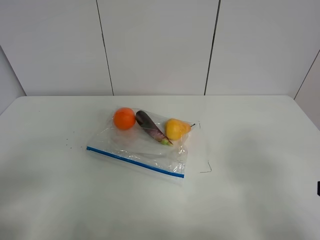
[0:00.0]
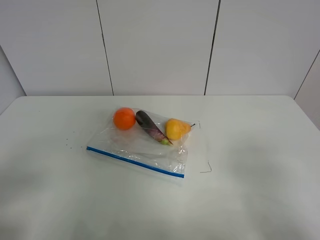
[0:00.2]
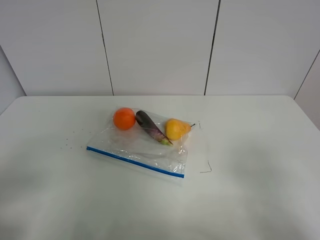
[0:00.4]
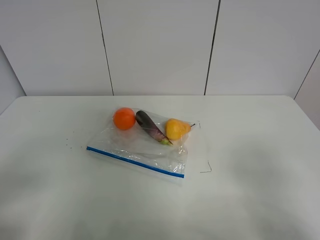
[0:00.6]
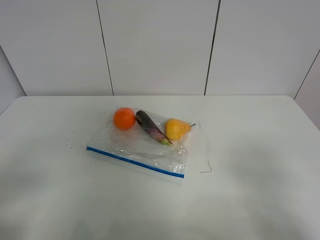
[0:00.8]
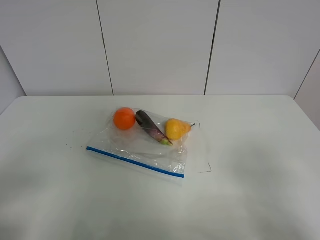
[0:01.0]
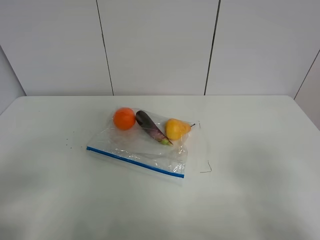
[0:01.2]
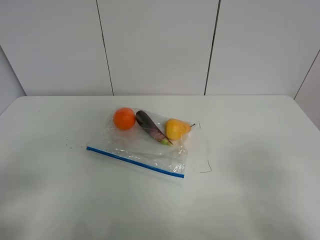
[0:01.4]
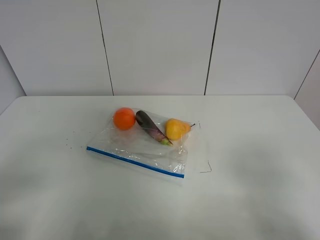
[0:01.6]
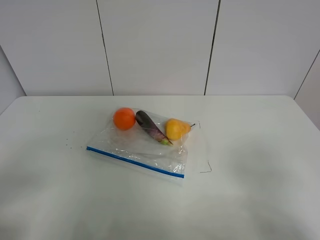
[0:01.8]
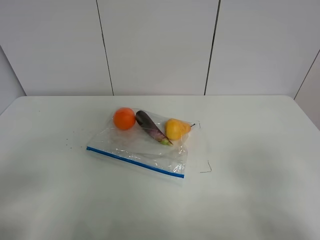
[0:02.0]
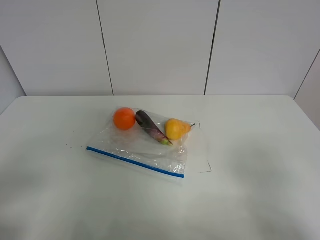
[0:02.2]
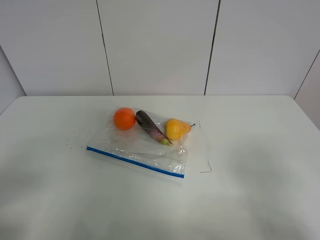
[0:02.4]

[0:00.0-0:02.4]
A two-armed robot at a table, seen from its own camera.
0:01.2 to 0:02.4: Both grippers stay put.

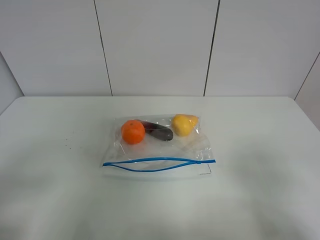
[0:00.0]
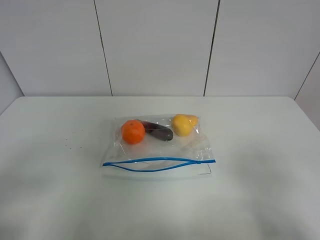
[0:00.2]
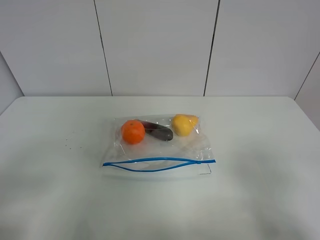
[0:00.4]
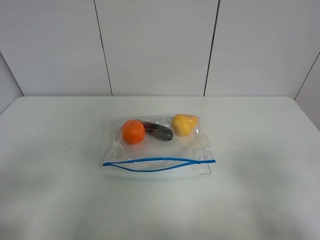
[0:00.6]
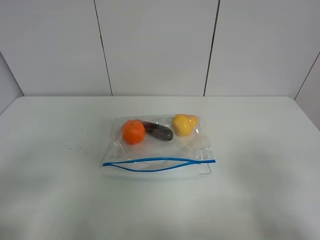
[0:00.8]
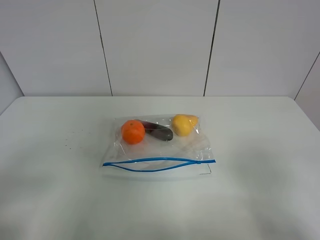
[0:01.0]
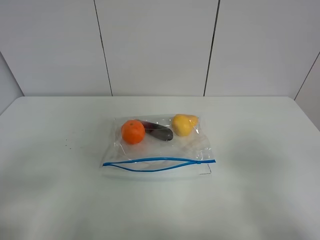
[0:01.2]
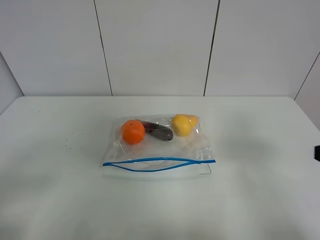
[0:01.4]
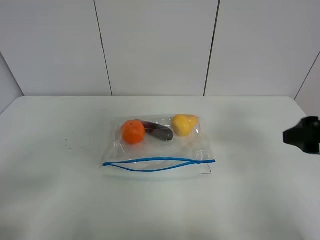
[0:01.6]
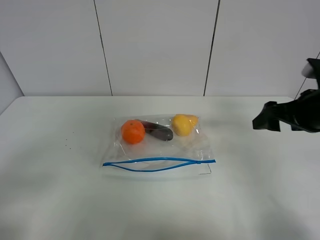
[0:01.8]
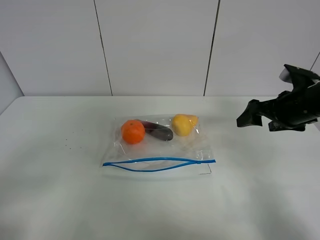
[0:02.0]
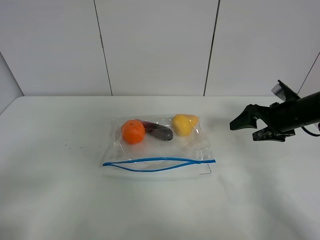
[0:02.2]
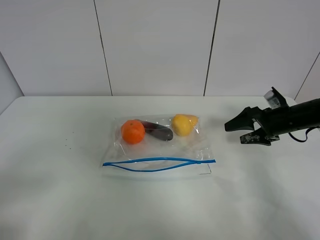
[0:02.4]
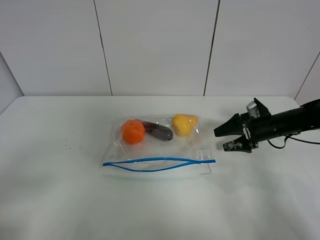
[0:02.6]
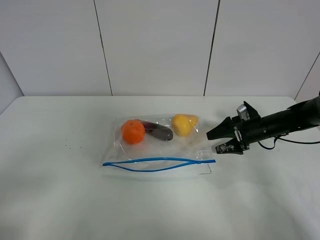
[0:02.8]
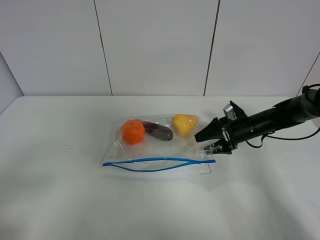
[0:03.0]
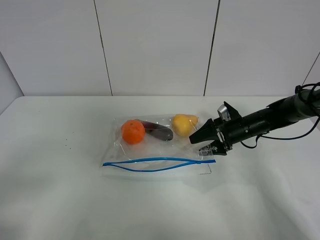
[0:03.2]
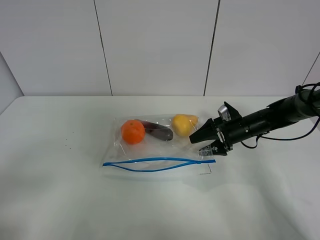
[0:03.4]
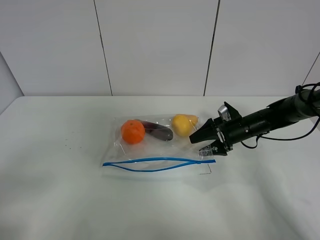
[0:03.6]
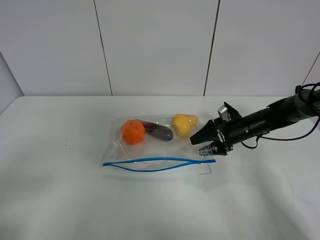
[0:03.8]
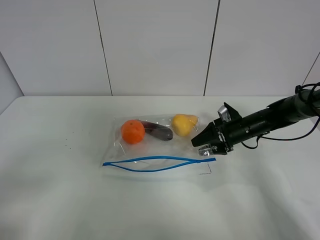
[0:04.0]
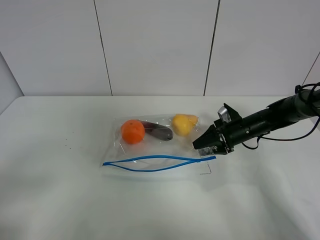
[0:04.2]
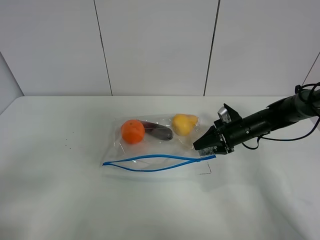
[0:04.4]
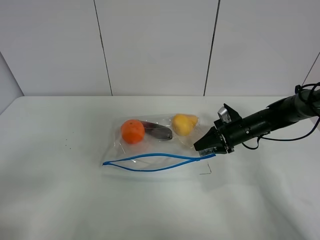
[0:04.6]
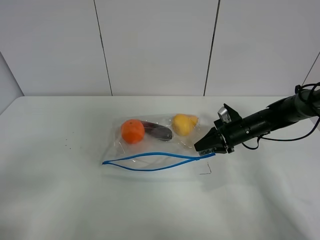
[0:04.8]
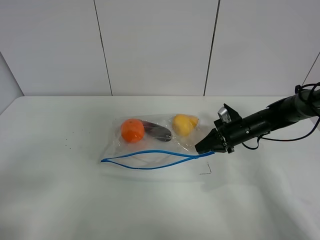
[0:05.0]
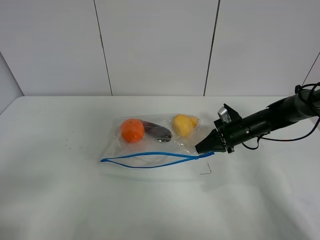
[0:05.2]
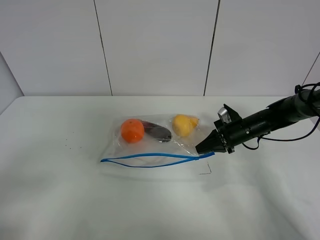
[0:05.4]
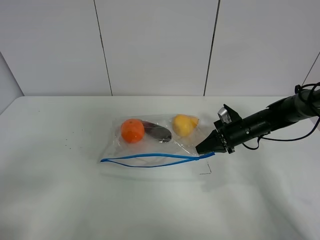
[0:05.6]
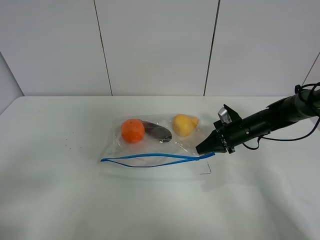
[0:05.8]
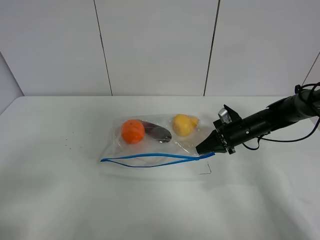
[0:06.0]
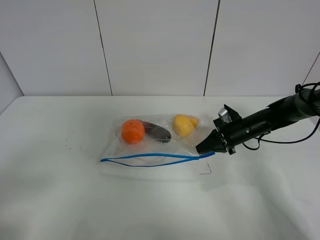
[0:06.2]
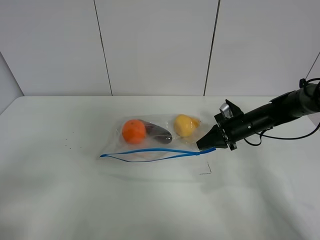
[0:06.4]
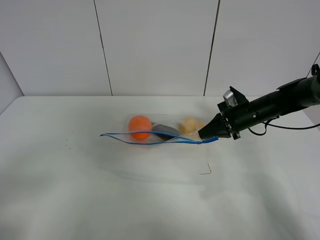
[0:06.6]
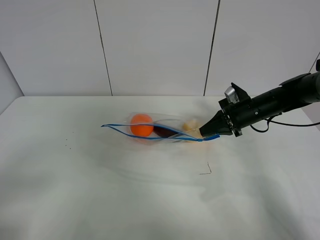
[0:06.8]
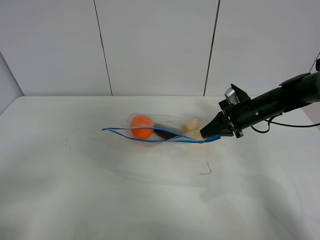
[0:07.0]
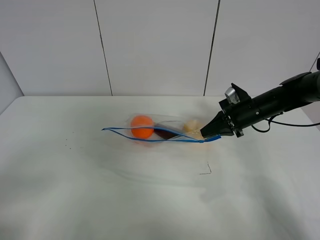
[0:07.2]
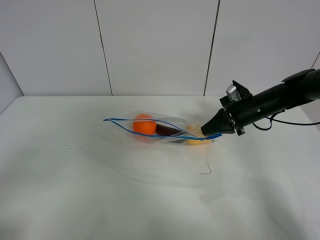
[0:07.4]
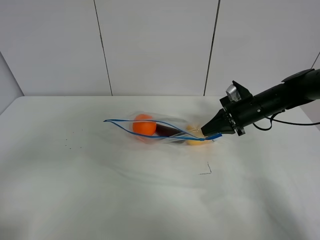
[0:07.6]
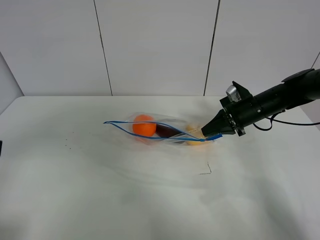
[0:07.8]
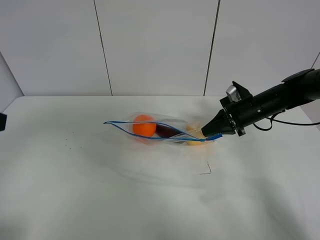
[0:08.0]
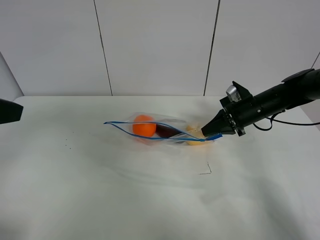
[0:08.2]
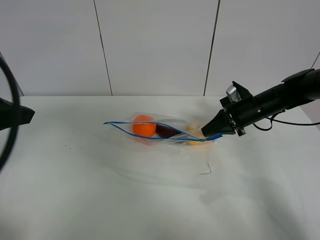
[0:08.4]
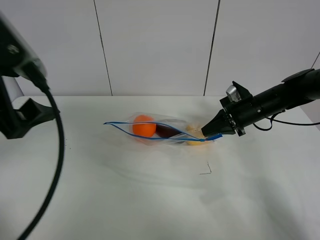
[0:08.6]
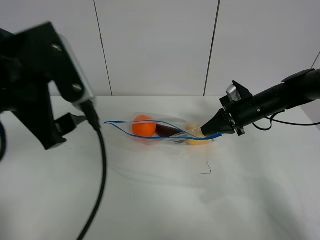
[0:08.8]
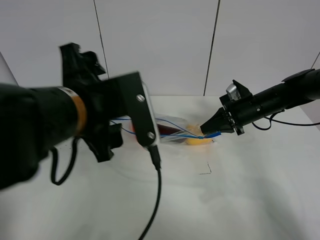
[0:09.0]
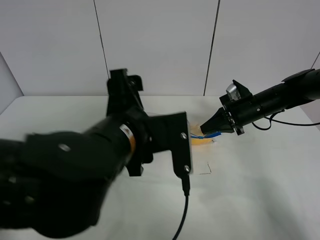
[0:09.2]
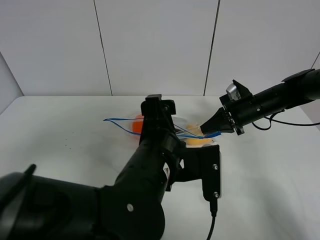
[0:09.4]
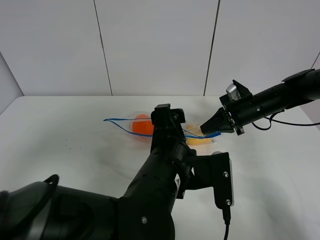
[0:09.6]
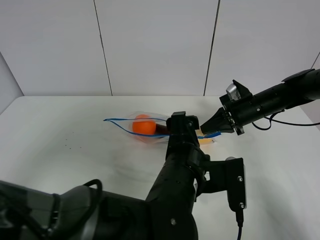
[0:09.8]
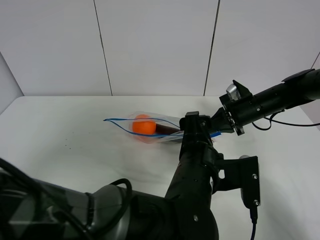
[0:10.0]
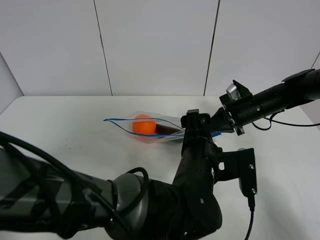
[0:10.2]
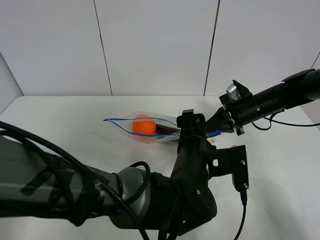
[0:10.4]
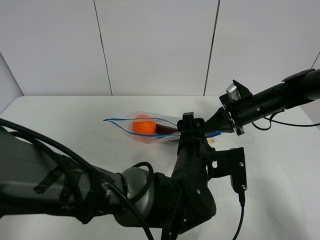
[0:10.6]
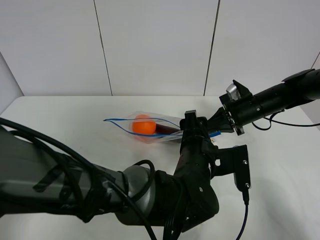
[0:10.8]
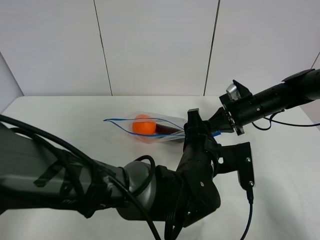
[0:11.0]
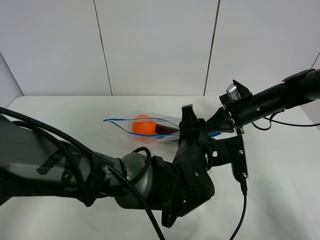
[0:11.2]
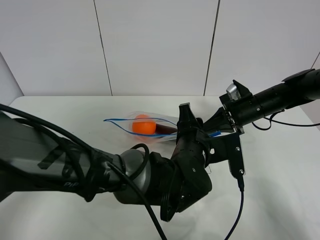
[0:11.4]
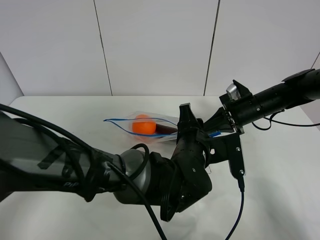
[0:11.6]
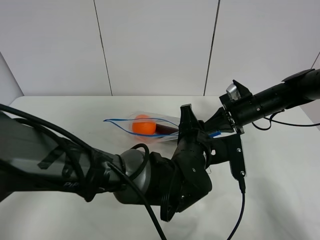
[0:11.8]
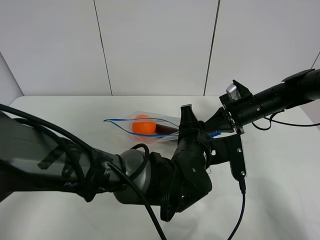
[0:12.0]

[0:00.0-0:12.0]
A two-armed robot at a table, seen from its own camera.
Step, 0:00.0 to 0:05.2: Grasp the fruit bag with right gripper.
Step, 0:05.4 to 0:07.8: Lift the fruit bag with your right gripper.
0:00.0 to 0:01.6: The right gripper travels forward by approximately 15 cm.
0:01.6 to 0:03.0: The right gripper heads forward and downward, covering approximately 30 cm.
0:03.0 to 0:04.4: The right gripper closes its fingers.
0:04.4 to 0:06.0: The right gripper closes its fingers.
0:06.0 to 0:07.6: Both grippers move upward, about 5 cm.
0:07.6 to 0:09.0: The left gripper heads to the right and forward, covering some 25 cm.
0:09.0 to 0:10.4: The left gripper goes approximately 20 cm to the right and downward.
0:10.4 to 0:12.0: The left gripper closes its fingers.

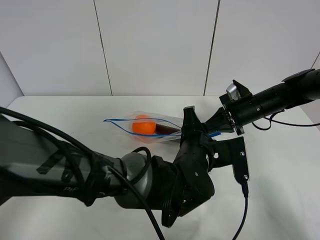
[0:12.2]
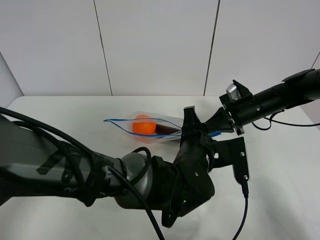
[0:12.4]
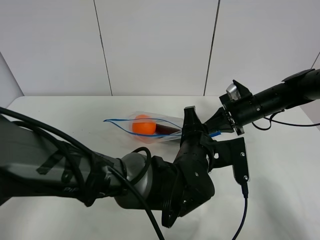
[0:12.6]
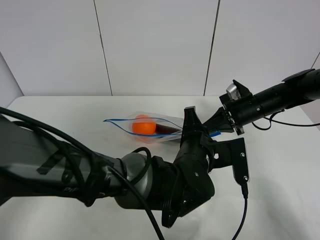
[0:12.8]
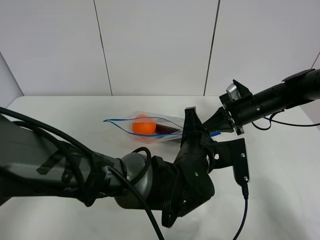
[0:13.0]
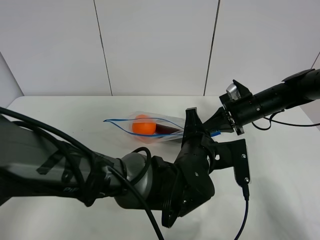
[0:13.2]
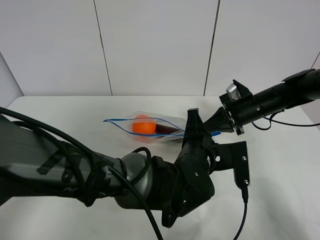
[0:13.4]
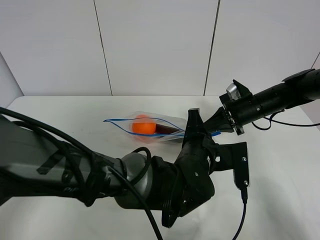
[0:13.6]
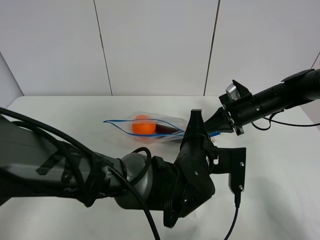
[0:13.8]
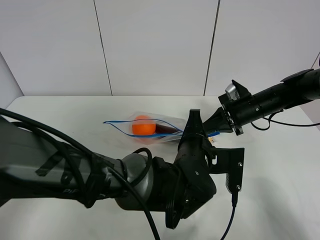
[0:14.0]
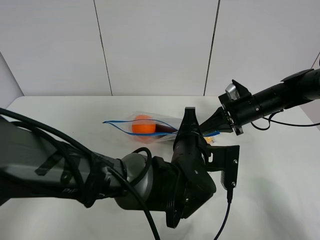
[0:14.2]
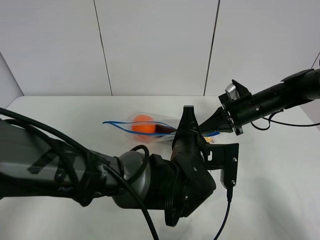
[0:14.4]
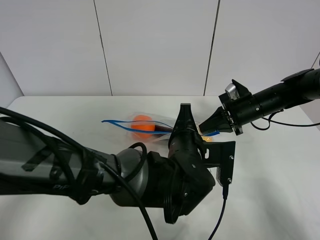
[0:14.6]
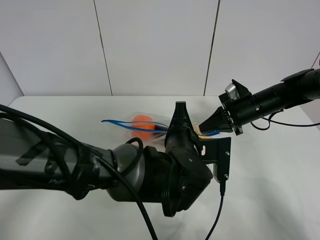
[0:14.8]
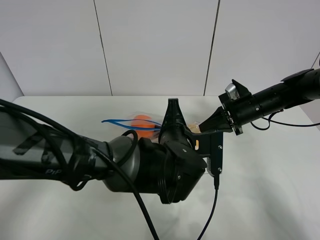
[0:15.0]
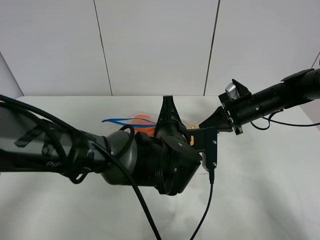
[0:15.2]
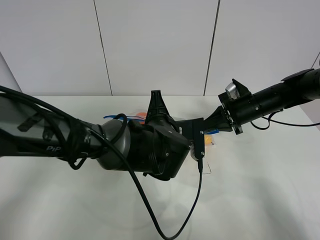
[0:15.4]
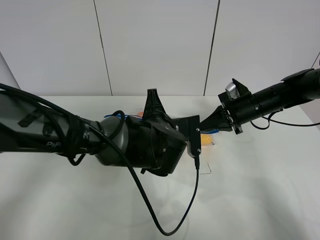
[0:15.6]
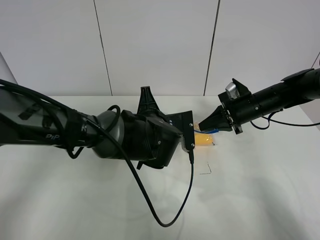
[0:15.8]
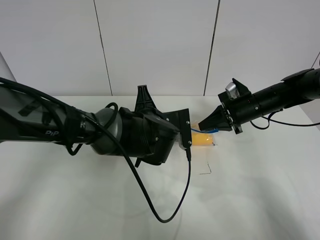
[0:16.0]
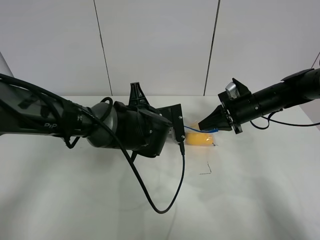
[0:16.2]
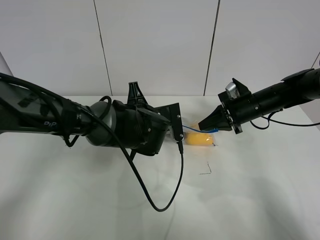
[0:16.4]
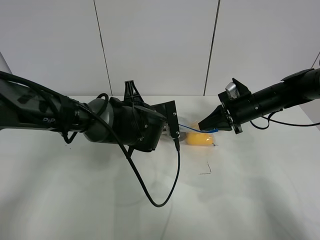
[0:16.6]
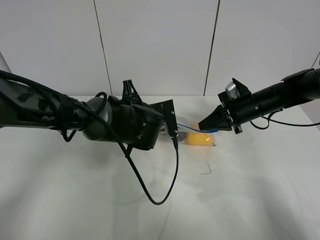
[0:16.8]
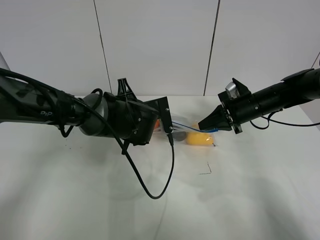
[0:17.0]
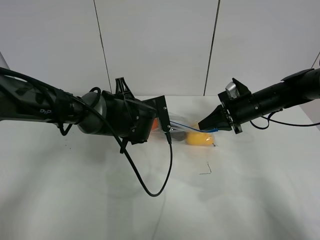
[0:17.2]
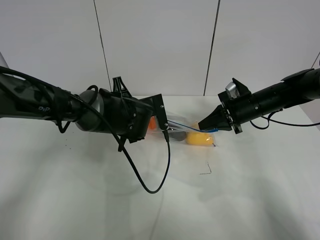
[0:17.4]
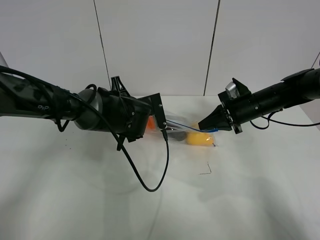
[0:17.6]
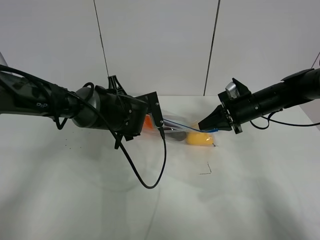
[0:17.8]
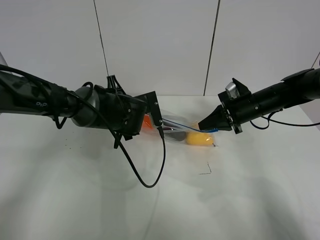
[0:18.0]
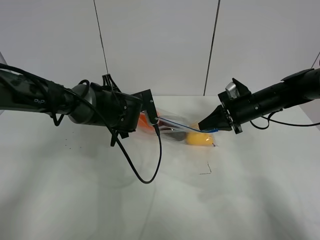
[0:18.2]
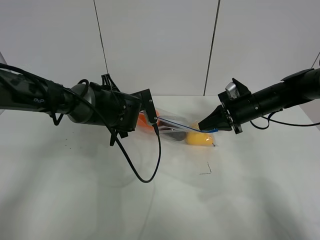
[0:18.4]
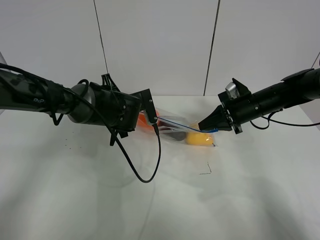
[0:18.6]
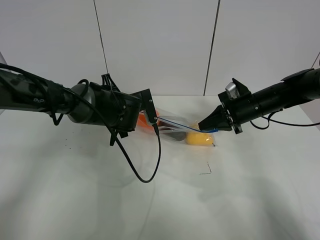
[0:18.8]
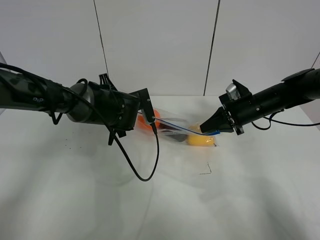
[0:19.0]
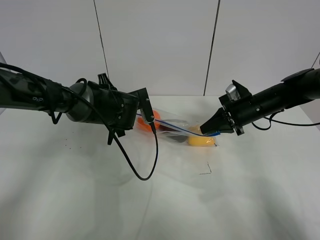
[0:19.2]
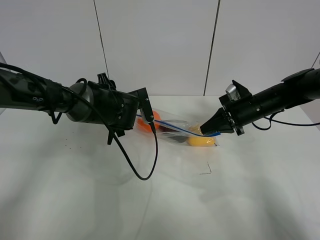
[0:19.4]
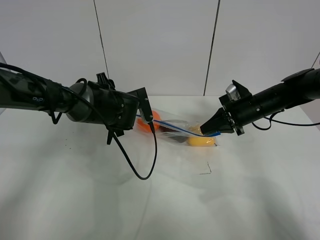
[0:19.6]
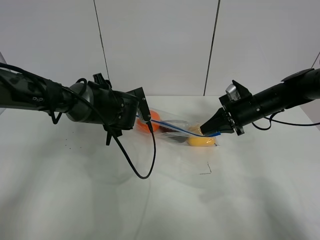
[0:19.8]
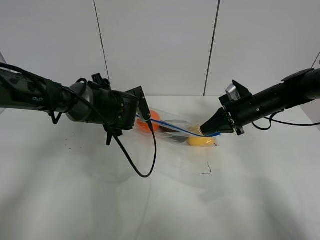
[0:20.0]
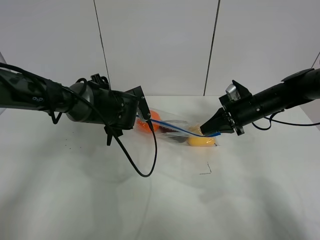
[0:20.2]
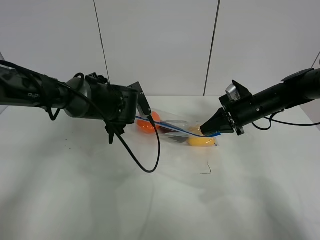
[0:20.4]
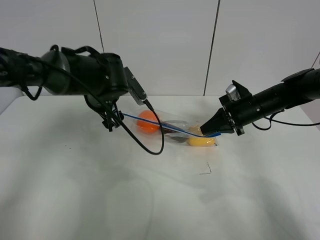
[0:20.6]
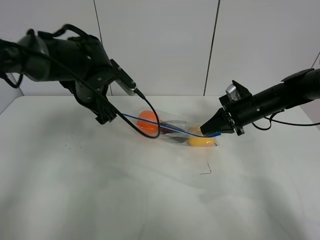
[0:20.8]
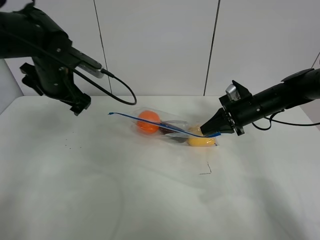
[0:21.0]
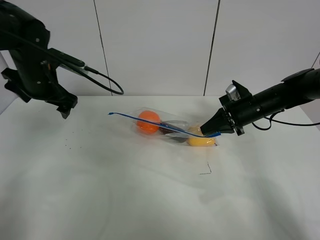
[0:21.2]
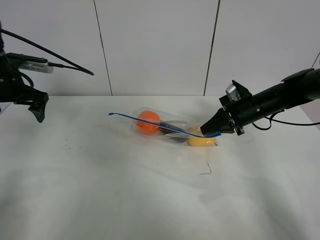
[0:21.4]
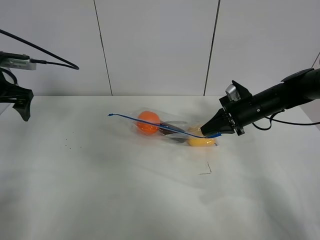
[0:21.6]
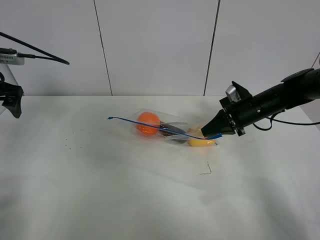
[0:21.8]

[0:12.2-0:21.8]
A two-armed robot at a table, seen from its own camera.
Step, 0:12.2 to 0:19.4: Pull the fruit bag with left gripper.
0:12.2 to 0:13.8: The left gripper closes its fingers.
0:13.8 to 0:15.4: The left gripper moves to the left and forward, approximately 10 cm.
0:15.4 to 0:17.0: The left gripper heads to the left and forward, covering roughly 10 cm.
0:17.0 to 0:18.6: The grippers make only small movements.
0:18.6 to 0:20.2: The left gripper opens up.
0:20.2 to 0:21.8: The left gripper goes roughly 30 cm to the left and upward.
